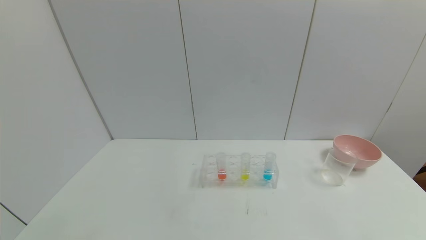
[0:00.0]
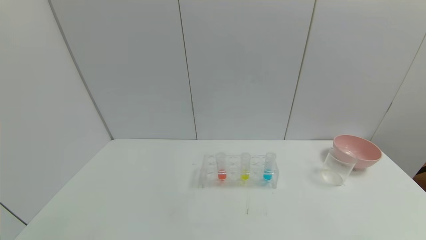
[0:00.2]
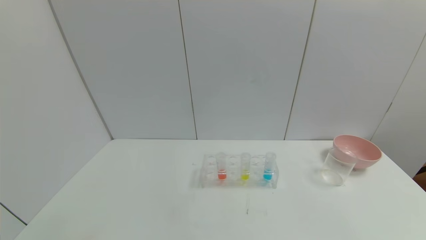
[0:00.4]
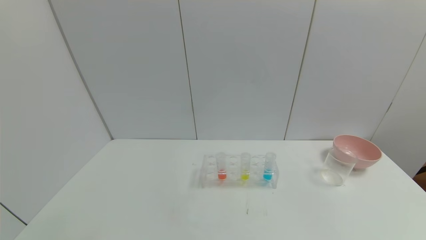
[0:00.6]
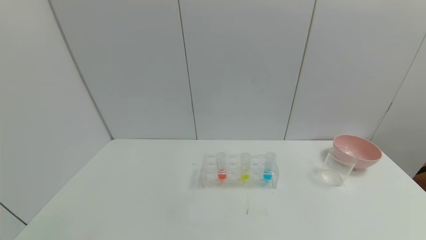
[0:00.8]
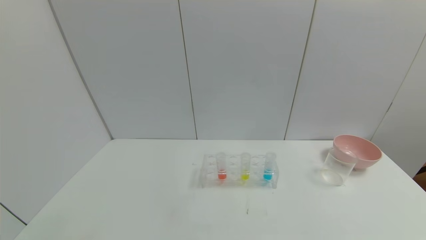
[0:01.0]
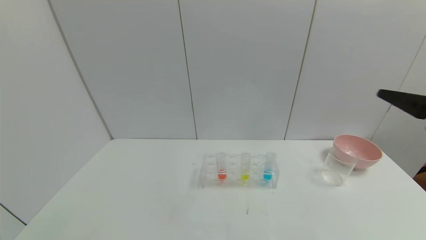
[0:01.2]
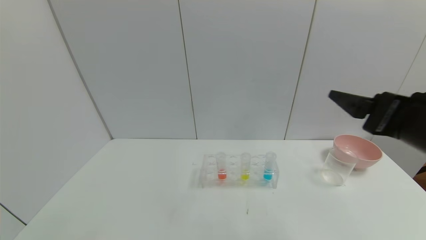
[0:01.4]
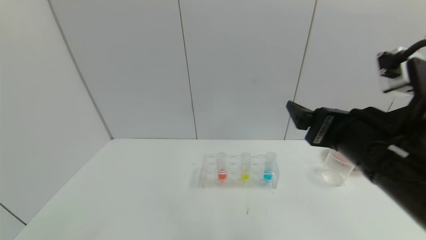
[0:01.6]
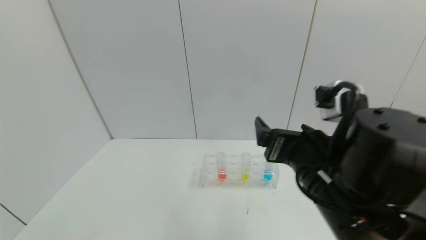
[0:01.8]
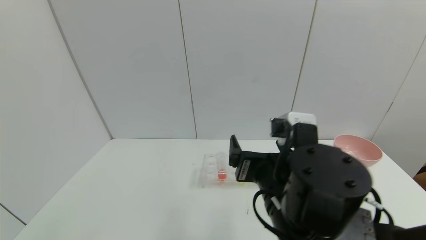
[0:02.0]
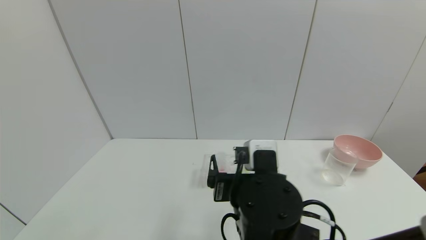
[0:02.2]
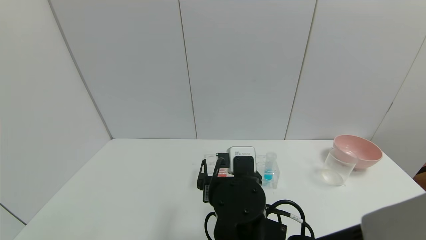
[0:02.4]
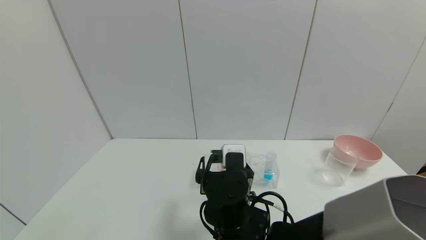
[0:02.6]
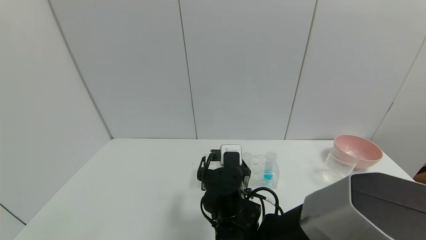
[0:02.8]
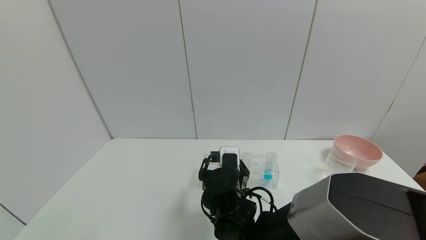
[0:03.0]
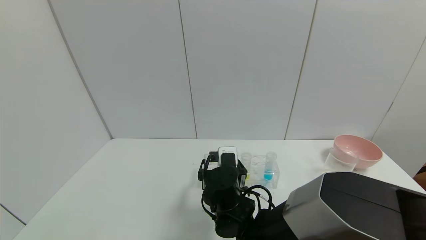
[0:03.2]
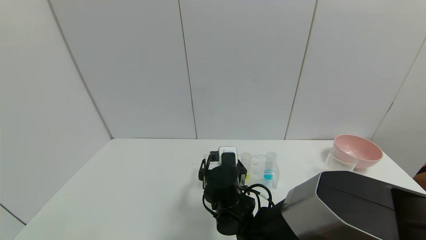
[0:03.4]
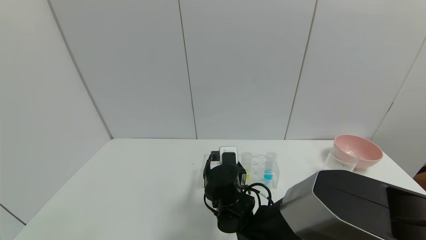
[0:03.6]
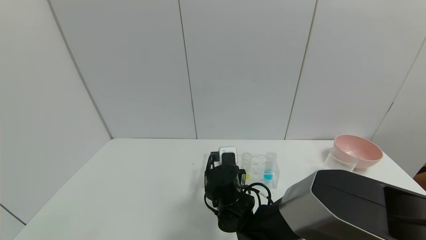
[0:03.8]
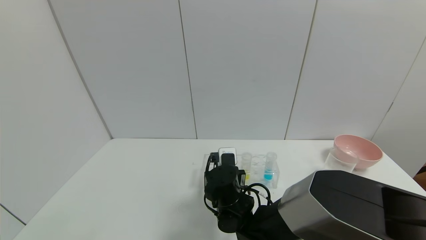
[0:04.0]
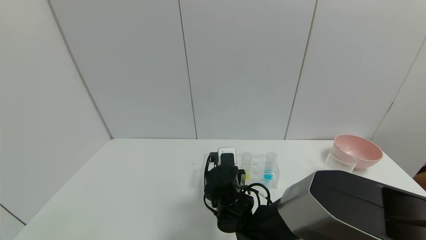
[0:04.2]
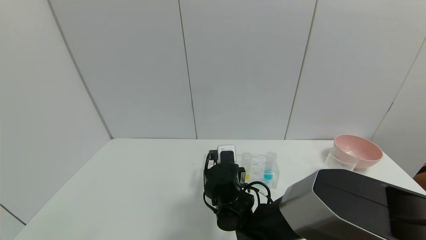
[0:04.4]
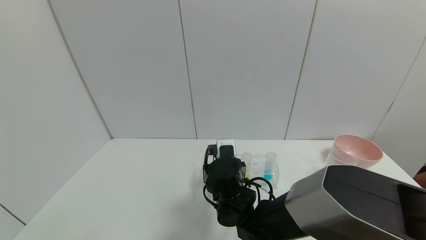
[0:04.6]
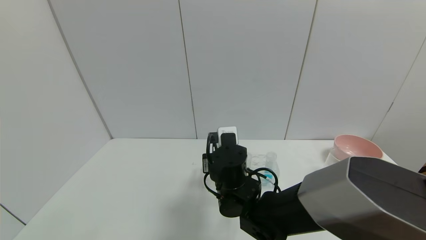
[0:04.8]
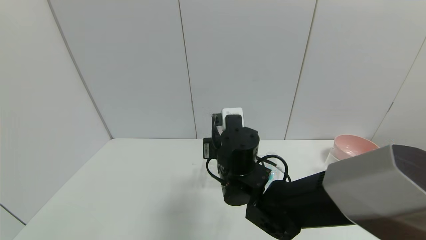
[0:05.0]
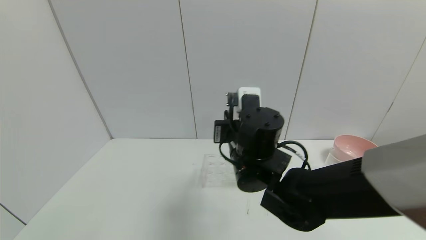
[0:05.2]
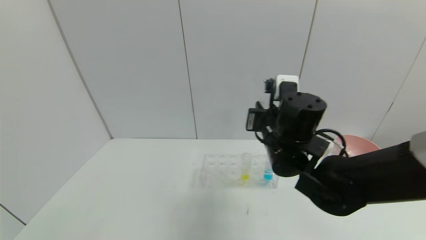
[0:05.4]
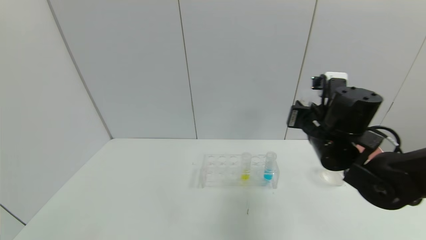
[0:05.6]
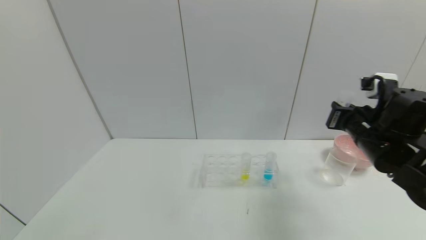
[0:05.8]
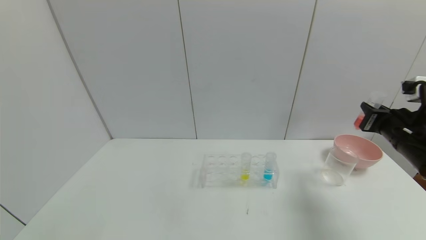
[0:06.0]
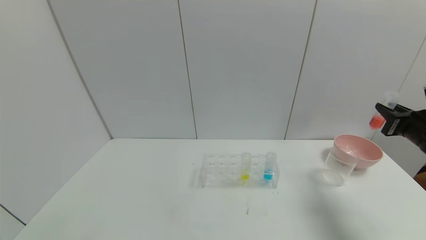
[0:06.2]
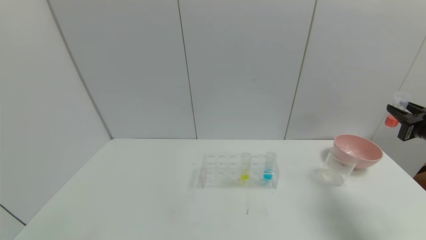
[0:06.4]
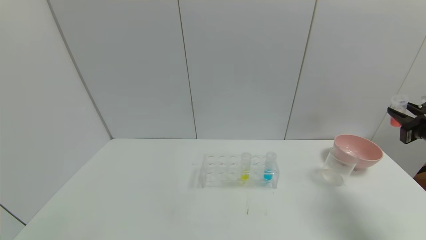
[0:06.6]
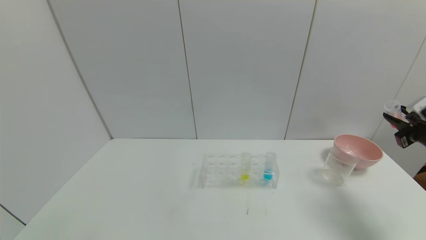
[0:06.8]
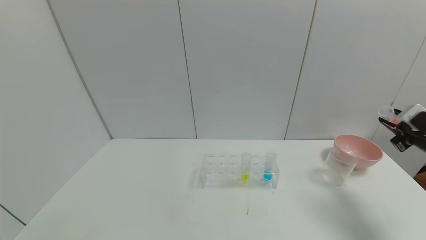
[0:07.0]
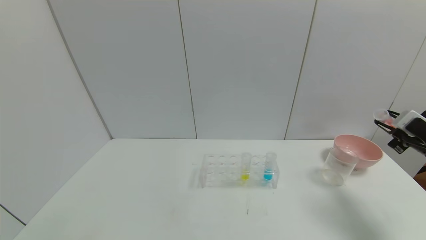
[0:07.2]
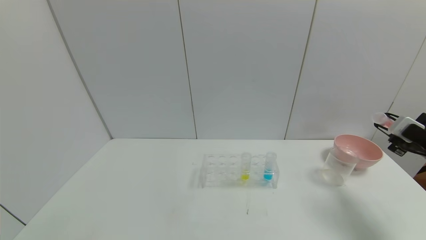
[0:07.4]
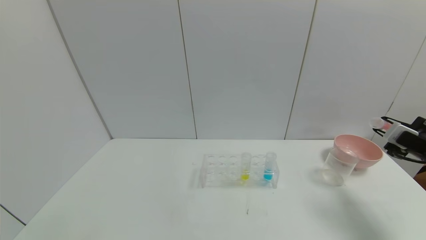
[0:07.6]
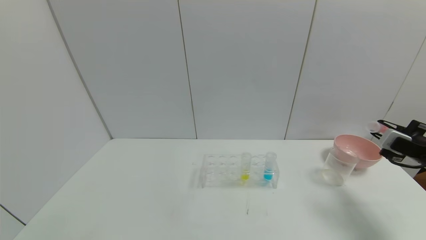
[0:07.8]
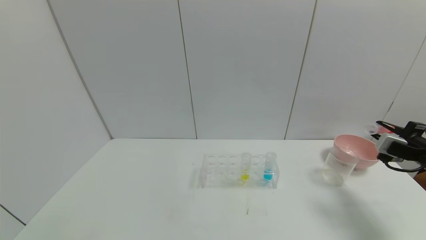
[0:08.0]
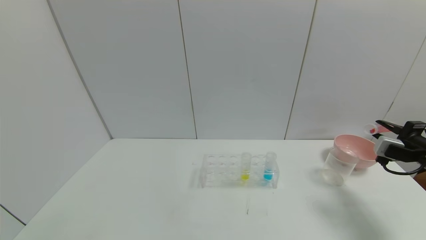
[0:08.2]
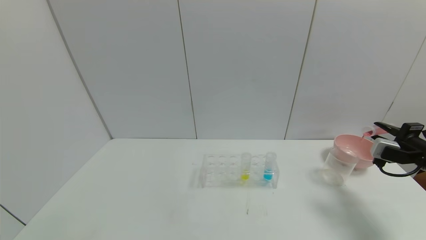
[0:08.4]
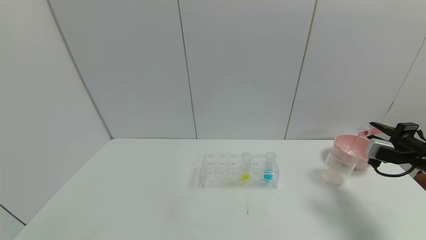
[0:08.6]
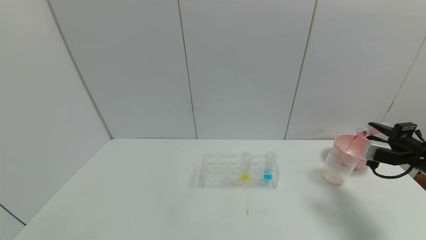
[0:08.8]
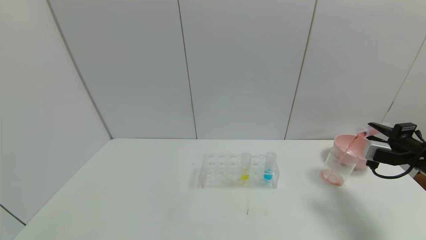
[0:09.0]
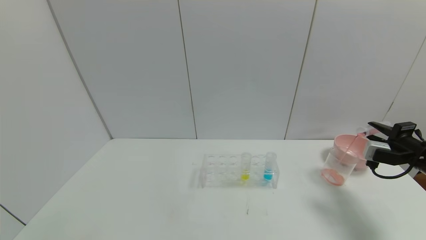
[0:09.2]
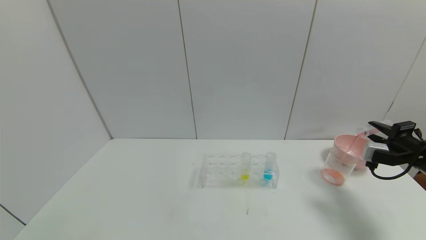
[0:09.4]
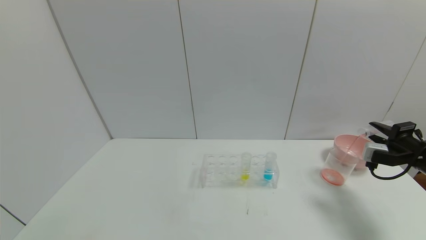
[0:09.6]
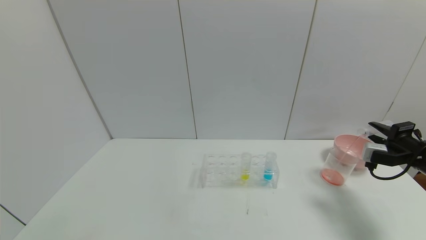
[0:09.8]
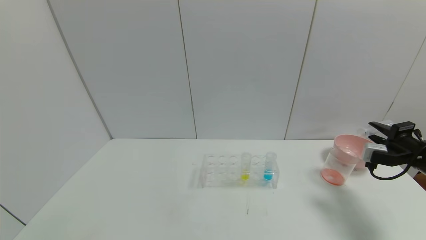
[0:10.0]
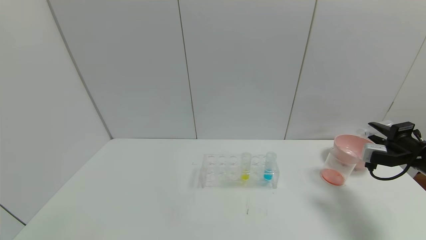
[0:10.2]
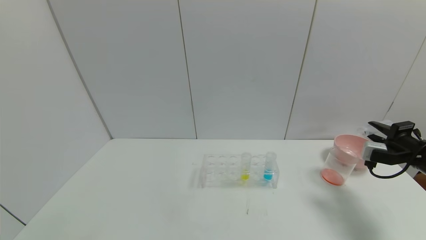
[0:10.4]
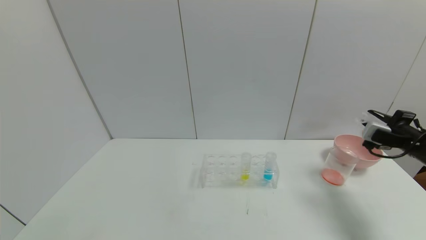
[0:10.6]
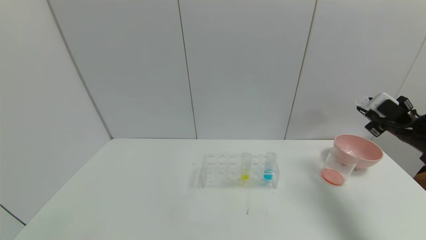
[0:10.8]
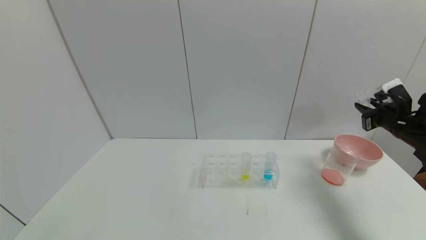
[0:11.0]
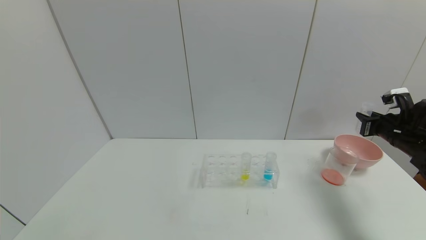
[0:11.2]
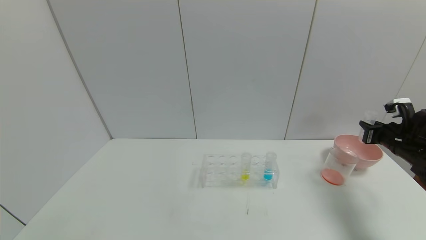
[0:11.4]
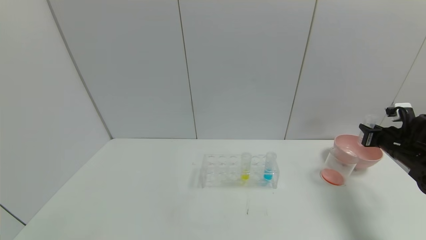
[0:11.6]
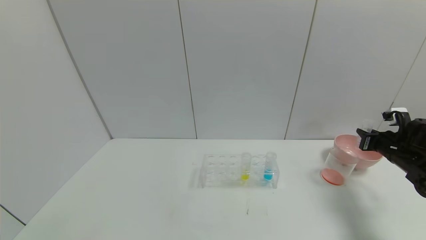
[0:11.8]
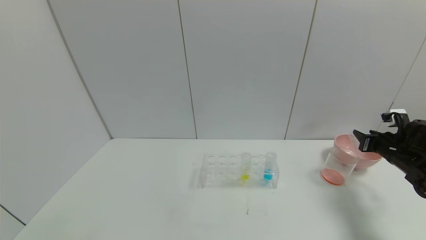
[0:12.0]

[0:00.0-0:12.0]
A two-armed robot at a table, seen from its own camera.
Task of the whole recording: pick up the test tube with yellow pigment and the test tube with red pigment by grippers and pour them into the beaker.
Step, 0:00.0 to 0:04.0: Grasp the red reagent with the right gripper.
Step, 0:04.2 to 0:10.2: Pour the red reagent into the graduated cylinder with the right gripper.
Step, 0:10.4 to 0:12.0: Place the test tube into the bowl with the right gripper.
0:00.0 to 0:01.6: The right gripper heads forward, to the left and upward, covering about 35 cm.
0:01.6 to 0:03.0: The right gripper heads downward, to the left and forward, covering some 25 cm.
0:03.0 to 0:04.4: The right gripper closes its fingers.
0:04.4 to 0:06.0: The right gripper is displaced to the right by about 35 cm.
0:06.0 to 0:07.6: The right gripper travels to the right by about 10 cm.
0:09.0 to 0:10.4: There are only small adjustments of the grippers.
0:10.4 to 0:12.0: The right gripper ends up some 5 cm from where it was, and opens up.

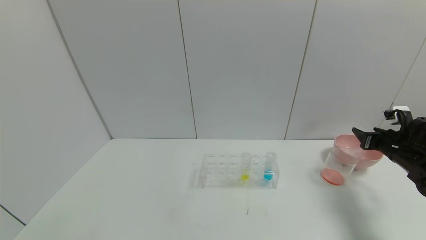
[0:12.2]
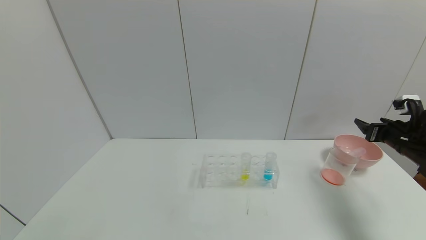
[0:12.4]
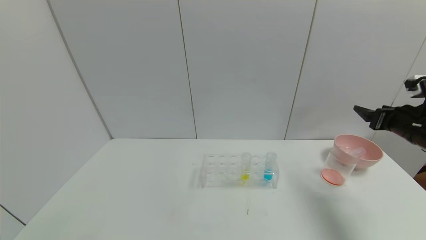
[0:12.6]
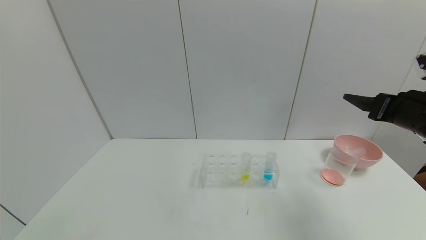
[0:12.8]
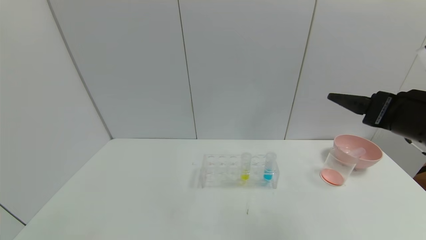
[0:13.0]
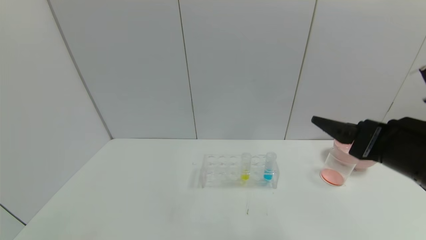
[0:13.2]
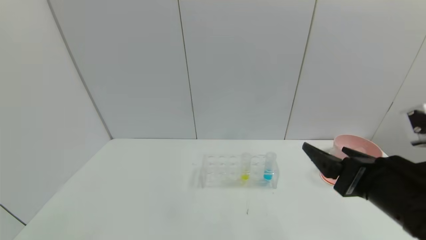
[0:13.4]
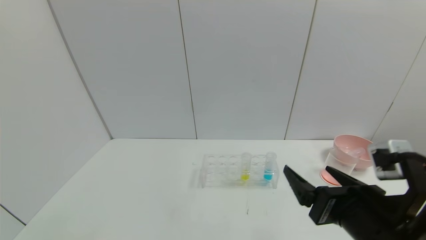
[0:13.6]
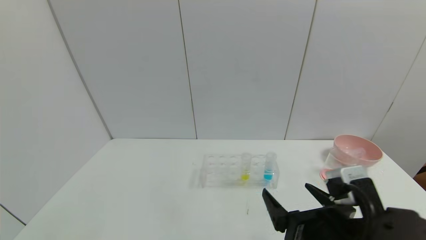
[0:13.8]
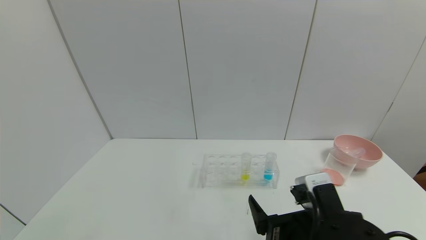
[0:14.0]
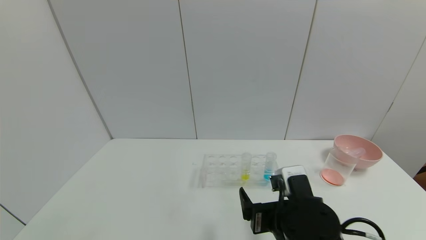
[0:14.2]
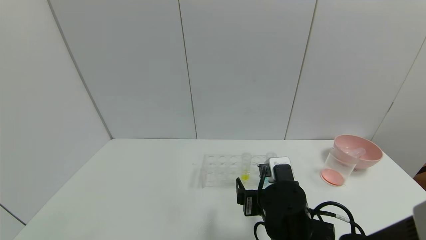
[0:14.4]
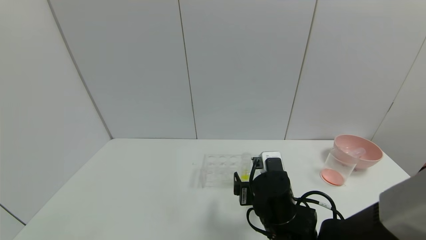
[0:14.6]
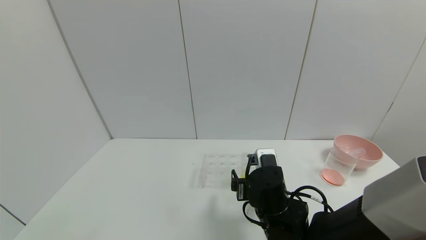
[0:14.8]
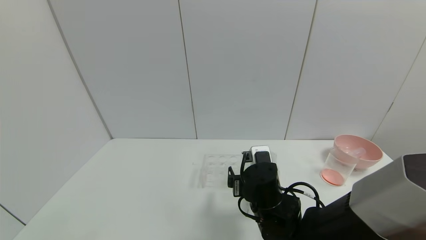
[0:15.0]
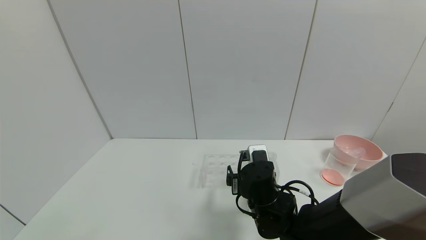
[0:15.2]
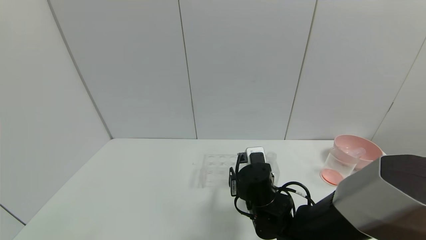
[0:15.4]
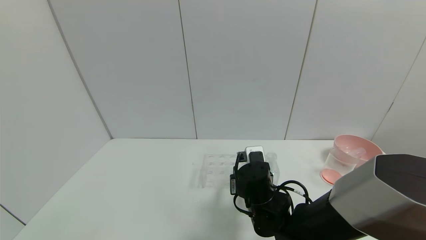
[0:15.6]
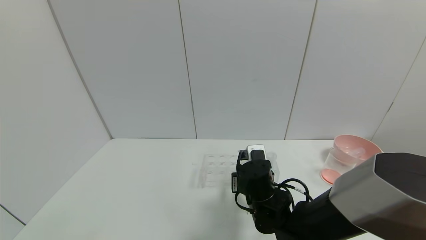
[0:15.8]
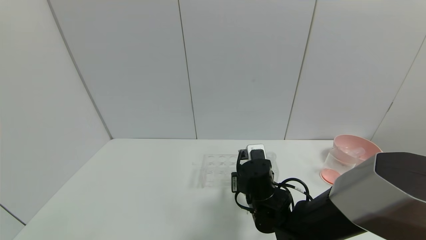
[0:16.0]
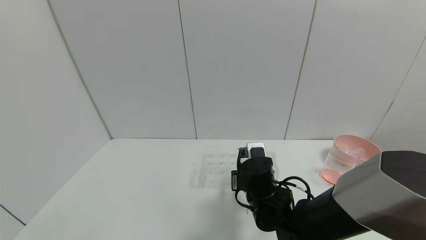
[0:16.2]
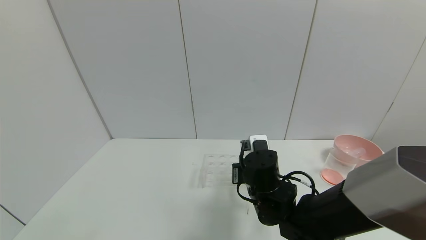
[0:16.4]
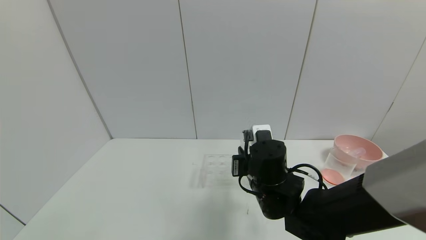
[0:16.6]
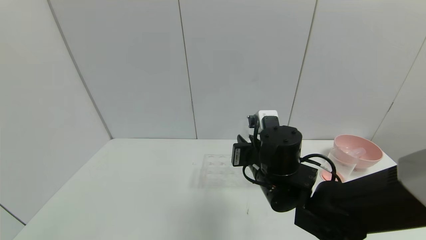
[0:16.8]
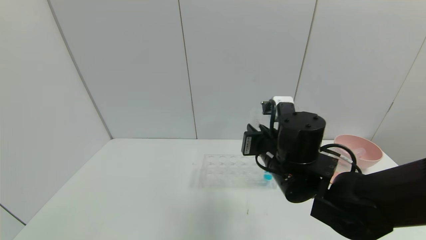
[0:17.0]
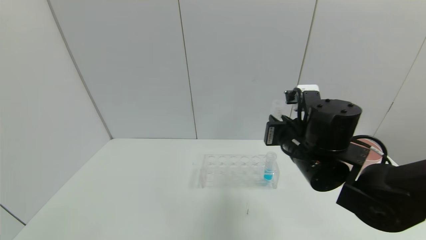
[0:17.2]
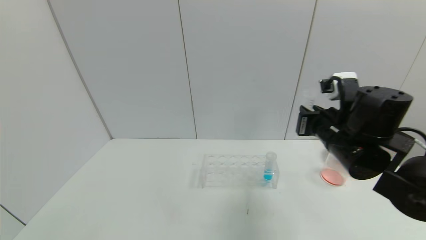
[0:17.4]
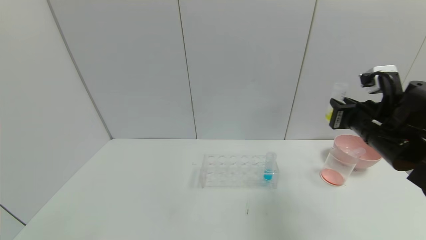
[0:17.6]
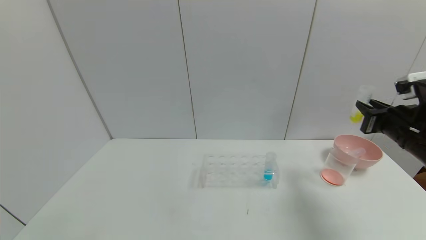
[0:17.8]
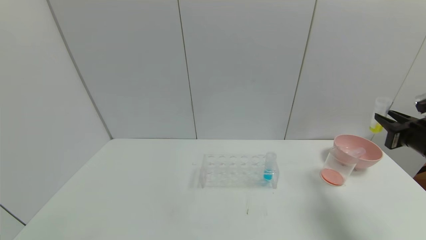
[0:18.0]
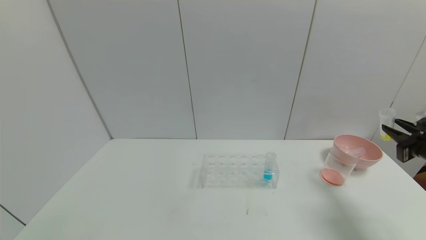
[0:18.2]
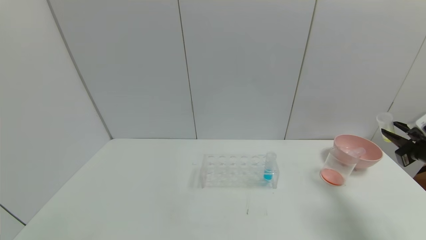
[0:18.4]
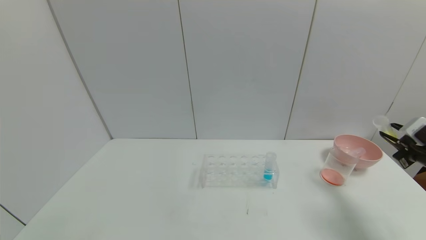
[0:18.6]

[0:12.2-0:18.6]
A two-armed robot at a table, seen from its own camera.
Task of the whole recording: pick up the test tube with yellow pigment and the test tube with red pigment by grippers and pour them into the beaker.
Step, 0:12.2 to 0:16.0: Grasp the yellow reagent with the right gripper.
0:12.2 to 0:13.8: The right gripper travels to the left and backward by roughly 35 cm, and opens.
0:13.8 to 0:15.4: The right gripper is displaced forward, to the left and downward by about 20 cm.
0:15.4 to 0:17.0: The right gripper travels upward by approximately 10 cm, and closes up.
0:17.0 to 0:18.6: The right gripper travels to the right by some 35 cm.
